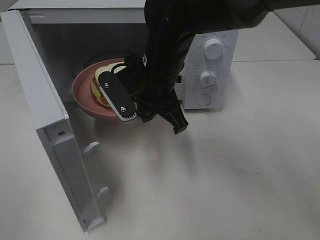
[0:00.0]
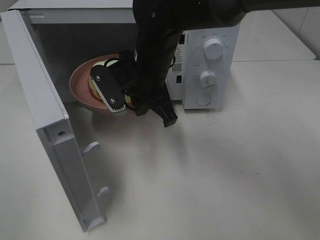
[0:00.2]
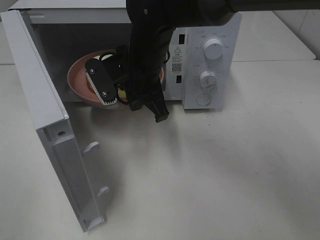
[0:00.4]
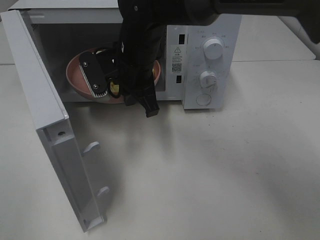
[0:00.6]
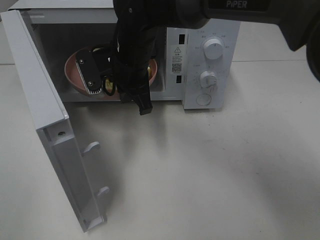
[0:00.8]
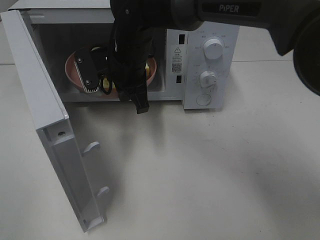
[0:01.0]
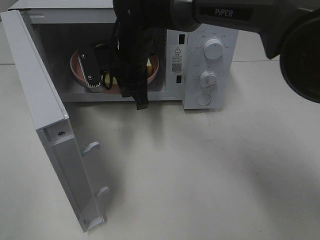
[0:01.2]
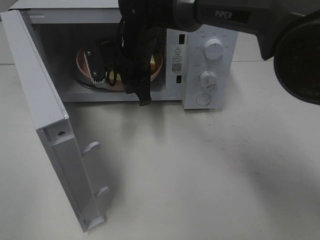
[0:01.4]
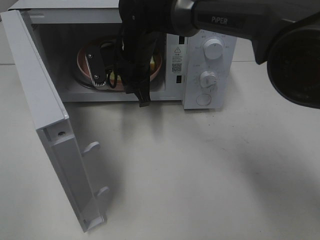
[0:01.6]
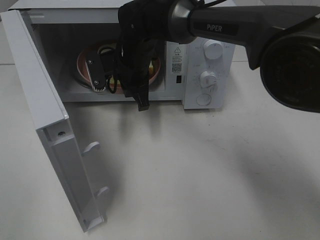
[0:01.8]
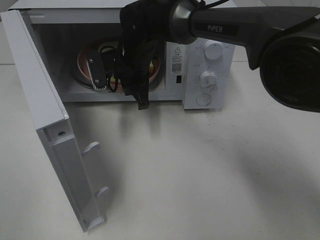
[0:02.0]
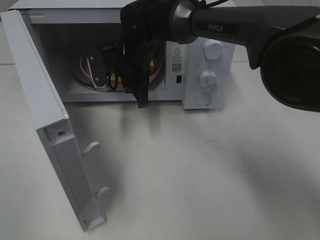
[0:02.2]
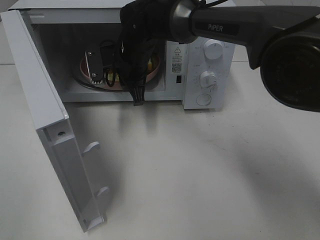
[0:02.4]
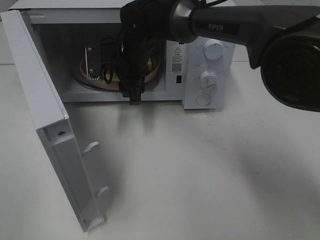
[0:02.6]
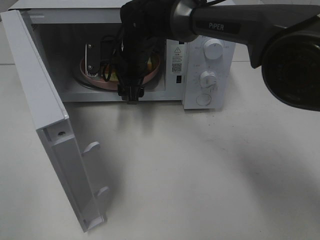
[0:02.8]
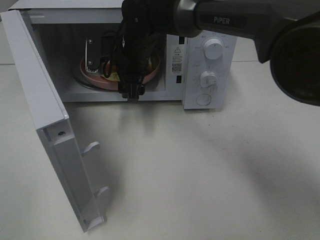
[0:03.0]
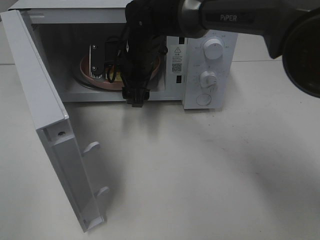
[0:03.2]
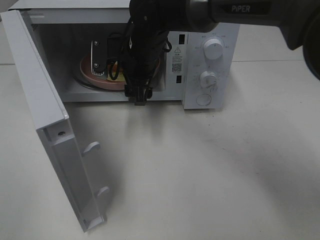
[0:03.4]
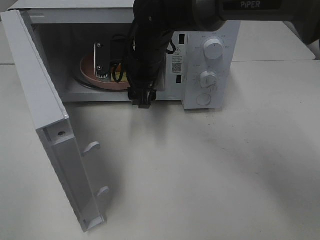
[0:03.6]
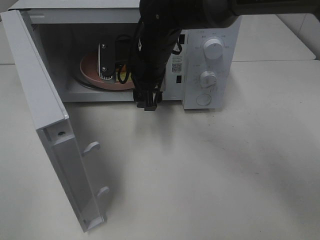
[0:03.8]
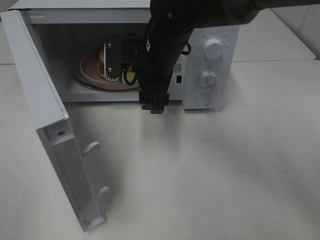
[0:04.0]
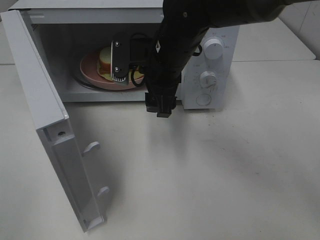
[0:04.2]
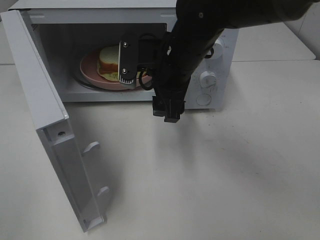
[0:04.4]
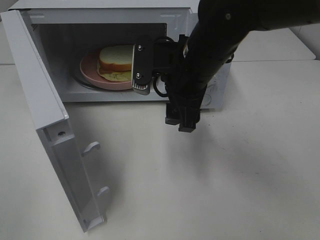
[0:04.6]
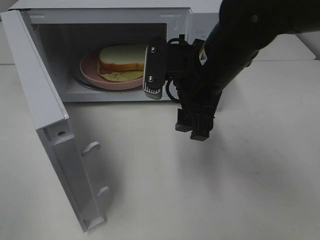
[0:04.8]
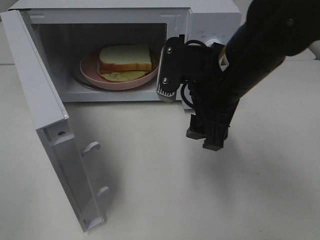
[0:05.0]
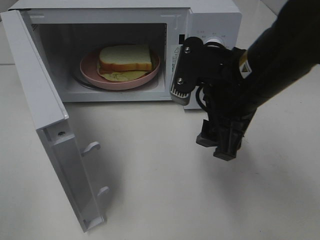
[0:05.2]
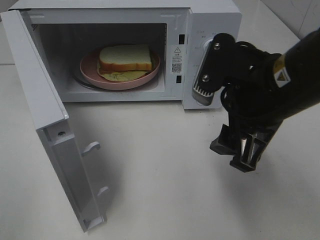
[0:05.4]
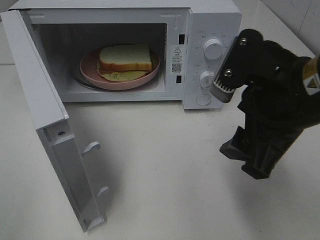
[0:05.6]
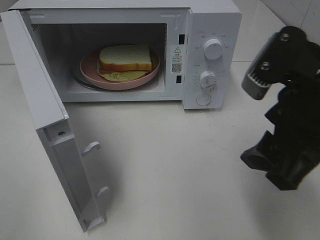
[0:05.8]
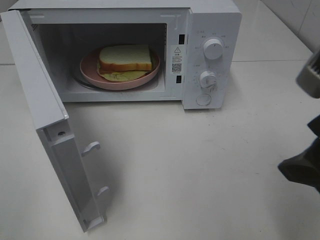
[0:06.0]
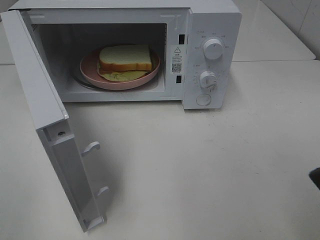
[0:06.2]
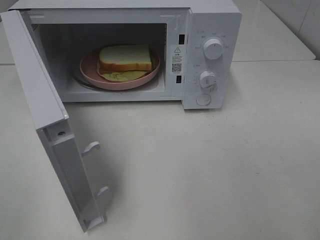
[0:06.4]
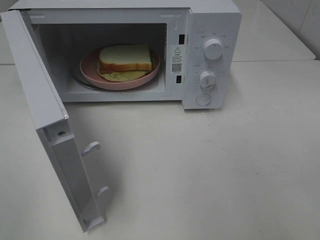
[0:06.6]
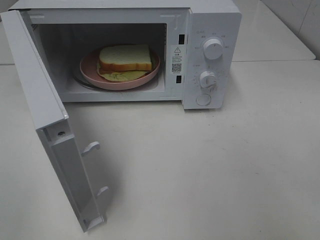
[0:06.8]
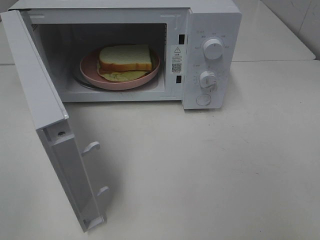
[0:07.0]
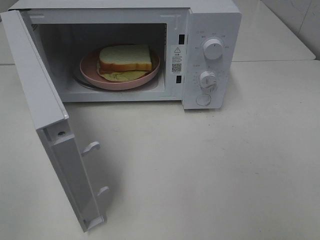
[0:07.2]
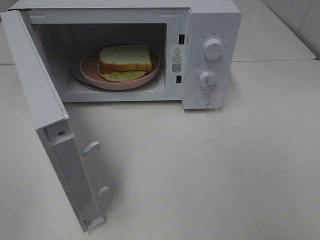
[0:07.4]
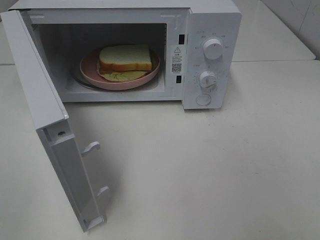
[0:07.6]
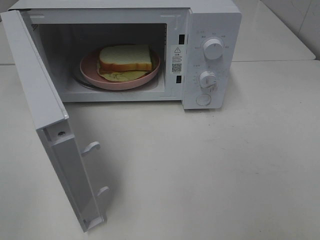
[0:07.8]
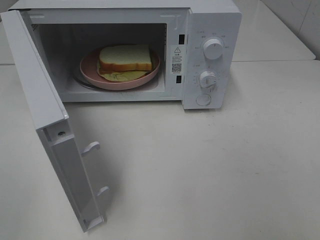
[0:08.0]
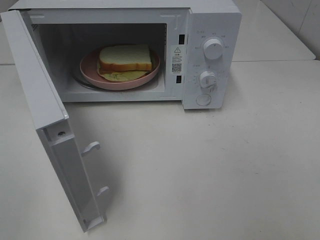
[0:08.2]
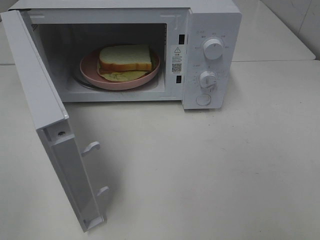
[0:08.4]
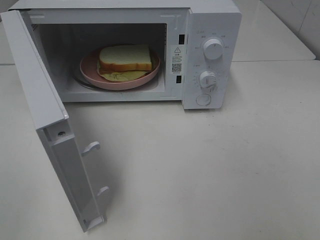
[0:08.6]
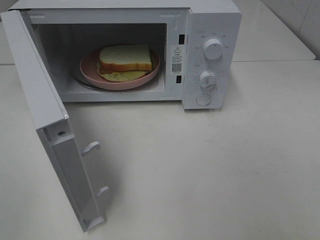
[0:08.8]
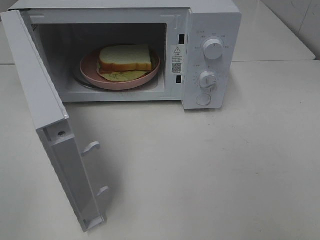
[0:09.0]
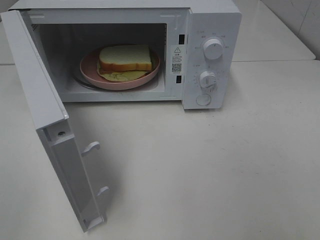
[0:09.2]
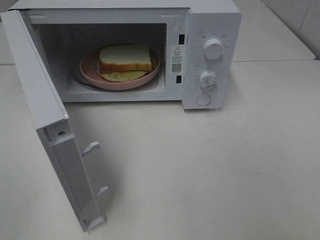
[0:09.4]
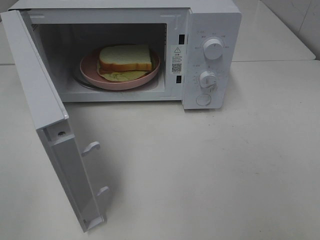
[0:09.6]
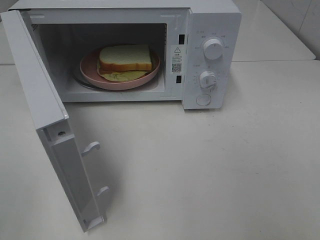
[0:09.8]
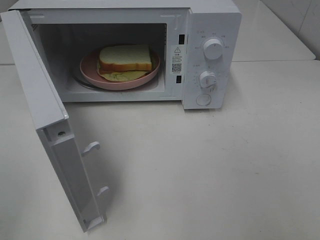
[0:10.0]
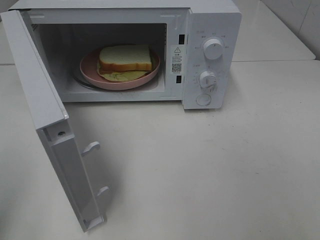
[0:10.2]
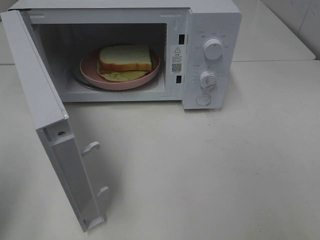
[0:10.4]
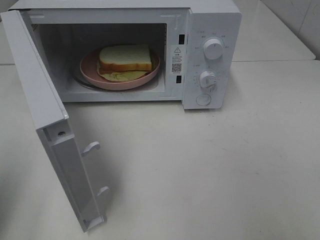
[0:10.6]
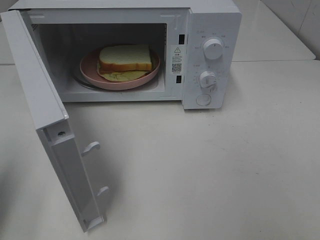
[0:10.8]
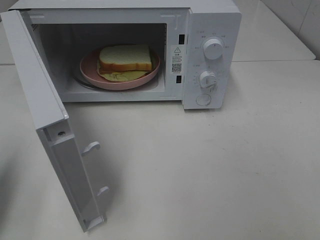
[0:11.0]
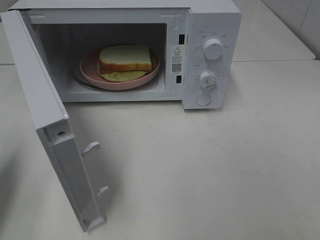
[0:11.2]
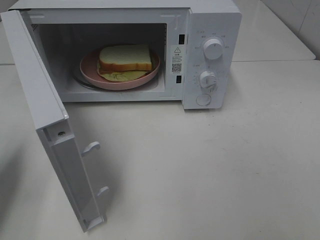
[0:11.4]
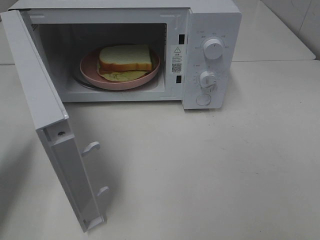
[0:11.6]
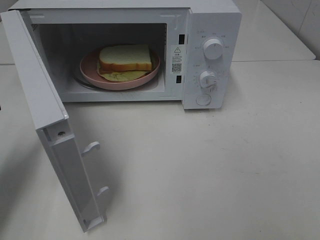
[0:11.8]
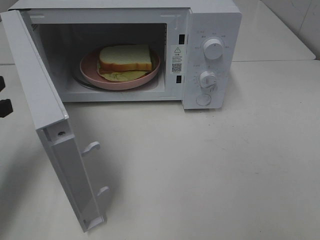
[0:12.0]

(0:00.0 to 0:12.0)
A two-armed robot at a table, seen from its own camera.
Task of the whole recording: Heat Sandwich.
Step, 0:00.0 - 0:03.6: Right hand: place the plate in the microwave.
0:00.0 - 0:01.6: The right gripper is displaced forward by approximately 10 cm.
0:01.6 - 0:03.0: The right gripper opens up.
0:03.0 - 0:04.4: The right gripper is displaced backward and to the right by roughly 10 cm.
0:04.4 - 0:06.0: The right gripper heads backward and to the right, covering some 25 cm.
0:06.0 - 0:07.6: The right gripper travels backward and to the right by some 15 cm.
0:07.6 - 0:09.0: Both grippers stay put.
0:10.4 - 0:12.0: The left gripper goes some 15 cm forward and downward.

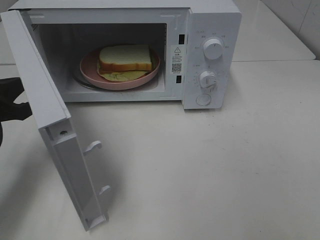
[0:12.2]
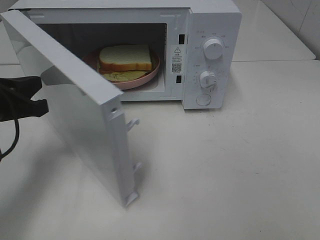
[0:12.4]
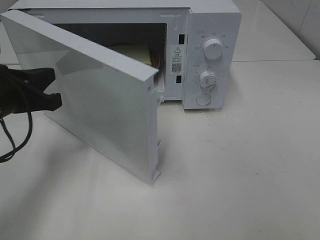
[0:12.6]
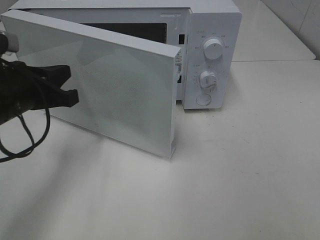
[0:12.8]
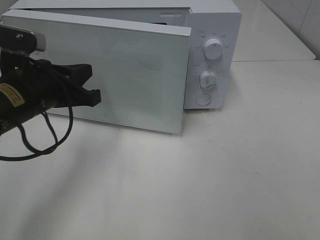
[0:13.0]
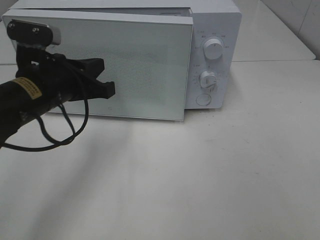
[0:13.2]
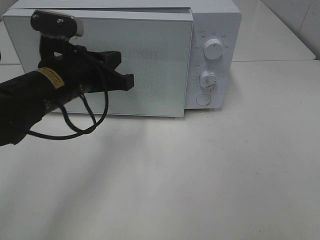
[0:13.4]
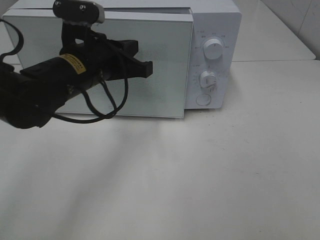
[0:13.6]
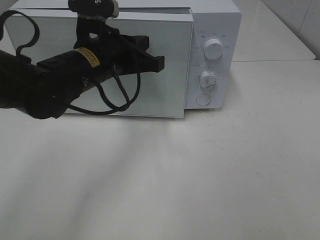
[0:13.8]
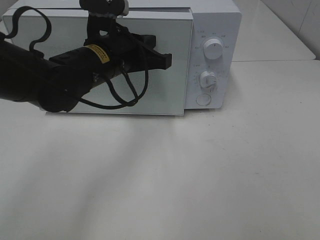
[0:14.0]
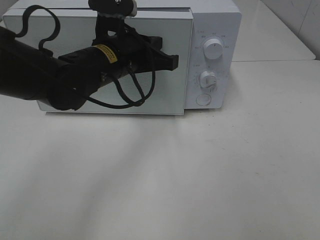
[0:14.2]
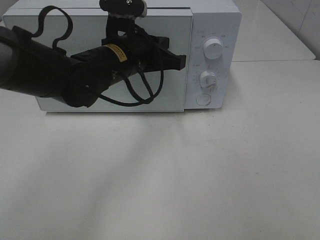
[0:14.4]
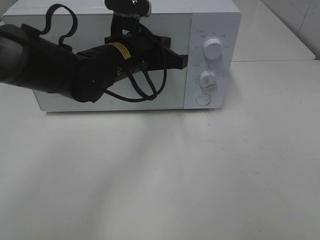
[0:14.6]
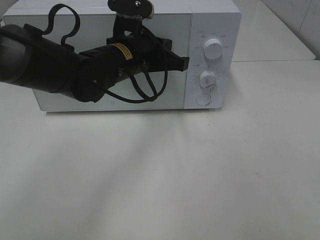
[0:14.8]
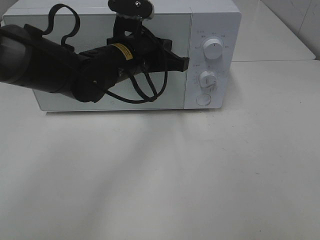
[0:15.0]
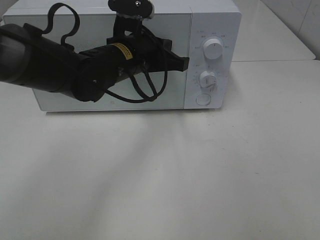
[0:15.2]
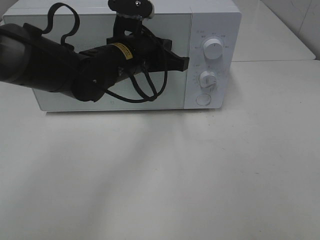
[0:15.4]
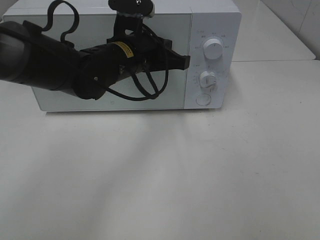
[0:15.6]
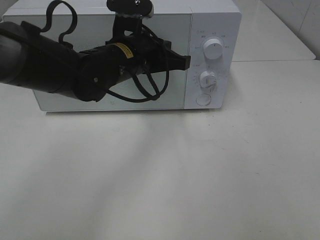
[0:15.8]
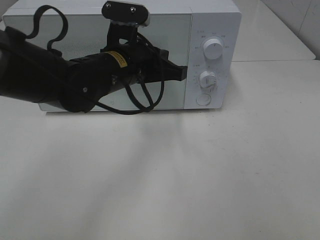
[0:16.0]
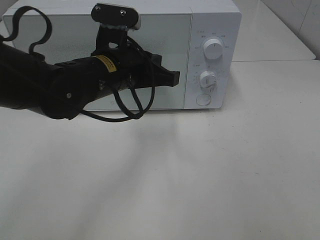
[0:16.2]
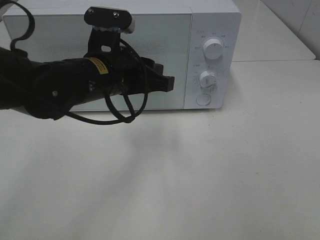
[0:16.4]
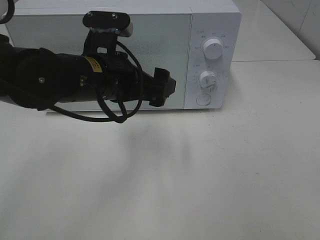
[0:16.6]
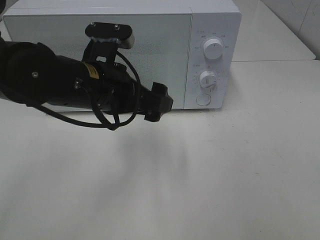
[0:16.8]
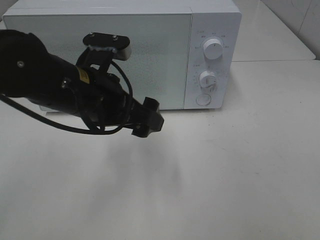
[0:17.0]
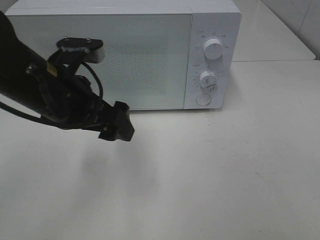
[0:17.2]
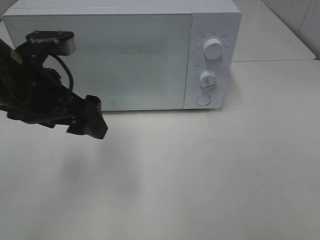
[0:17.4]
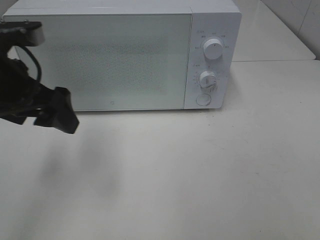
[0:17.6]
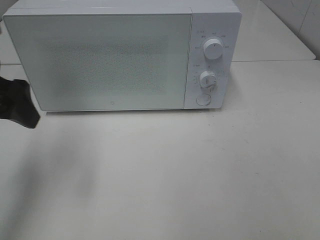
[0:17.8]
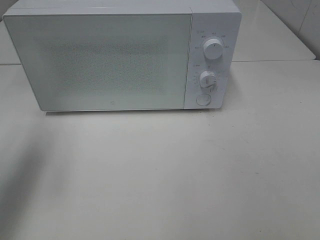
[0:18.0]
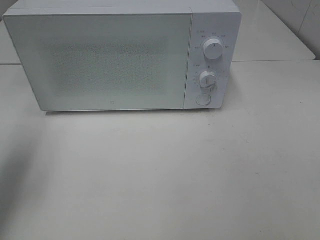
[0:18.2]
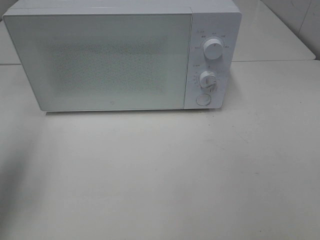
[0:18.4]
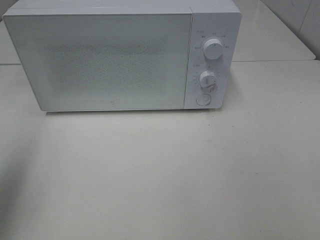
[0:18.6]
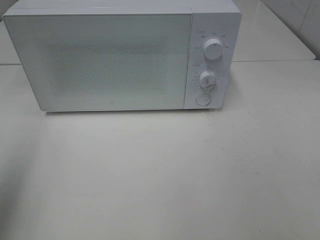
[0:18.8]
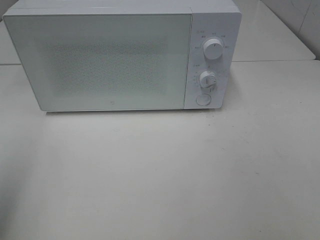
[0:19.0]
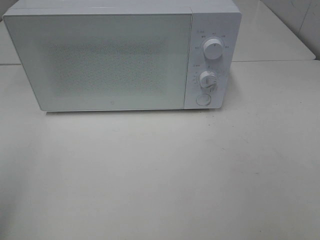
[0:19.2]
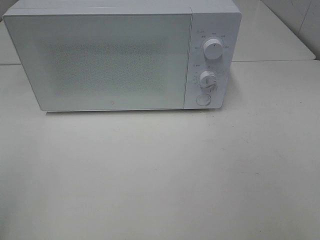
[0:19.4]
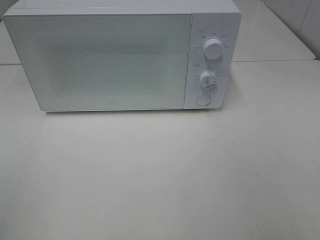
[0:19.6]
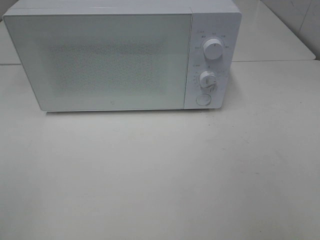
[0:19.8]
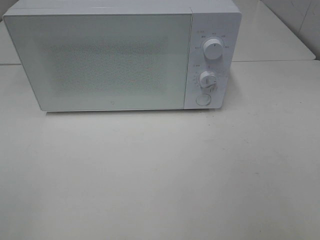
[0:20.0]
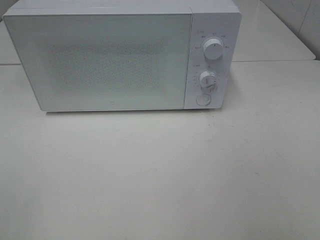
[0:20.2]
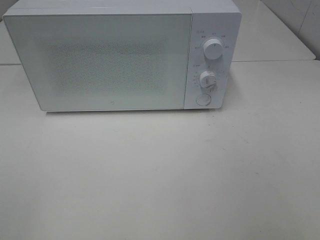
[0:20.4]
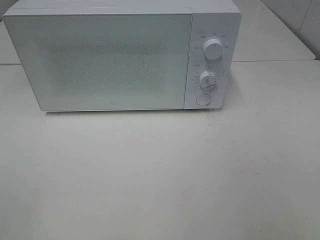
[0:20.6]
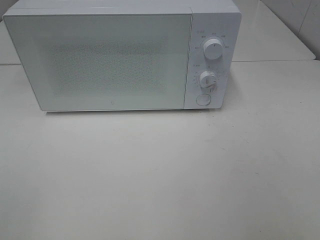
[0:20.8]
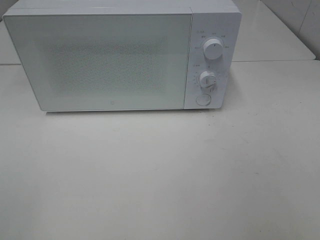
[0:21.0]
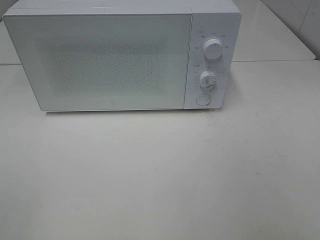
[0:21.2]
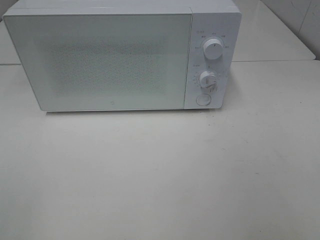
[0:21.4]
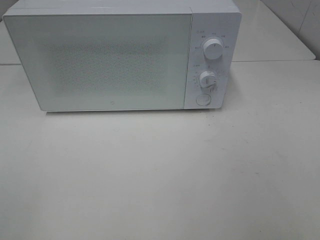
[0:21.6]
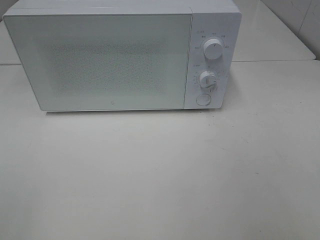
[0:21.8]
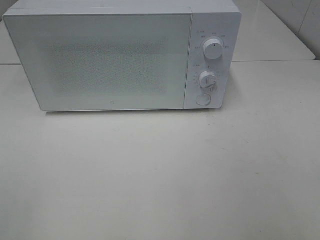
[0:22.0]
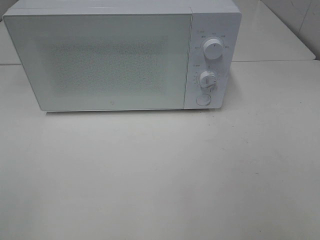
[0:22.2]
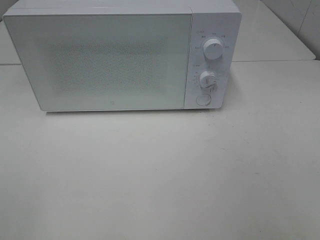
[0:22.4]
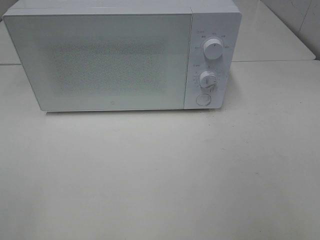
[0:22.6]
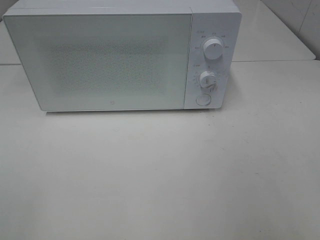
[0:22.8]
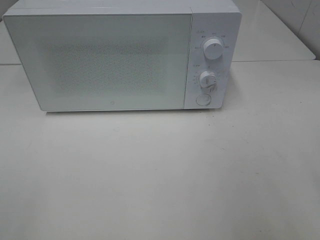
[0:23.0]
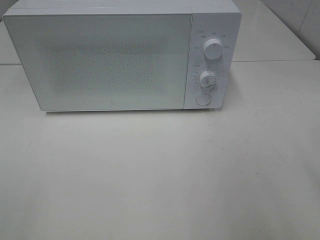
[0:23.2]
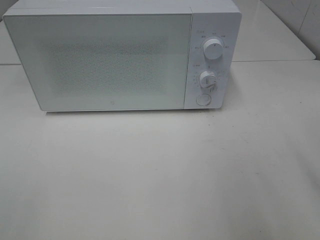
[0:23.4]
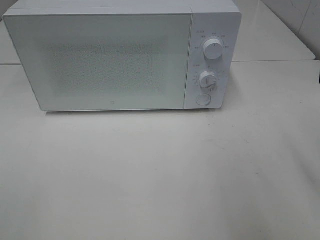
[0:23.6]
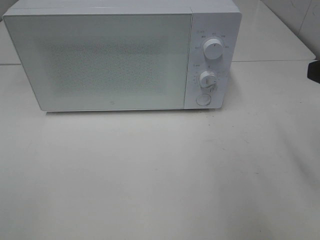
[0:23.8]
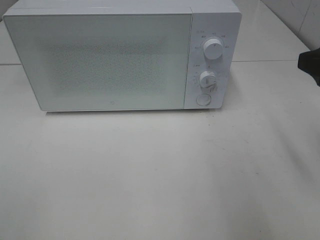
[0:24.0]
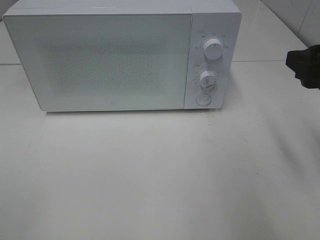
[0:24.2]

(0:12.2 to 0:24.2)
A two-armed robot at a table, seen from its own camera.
Task of the whole recording: Heat Sandwich.
Step, 0:12.2 - 0:16.2: Left hand: close the microwave door.
0:12.2 - 0:13.8: The left gripper moves to the right and forward, some 20 cm.
0:13.8 - 0:15.2: The left gripper moves roughly 5 cm.
0:15.2 - 0:16.6: The left gripper shifts some 10 cm backward, and opens.
0:16.6 - 0:18.2: The left gripper travels to the left by about 25 cm.
0:18.2 - 0:19.8: The left gripper shifts some 20 cm backward.
0:19.8 - 0:21.2: Both grippers stay about where they are.
0:22.6 - 0:24.2: The right gripper heads forward, covering approximately 15 cm.
